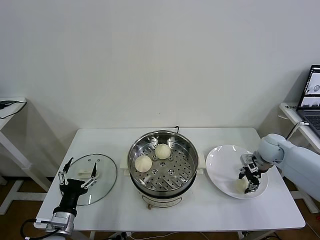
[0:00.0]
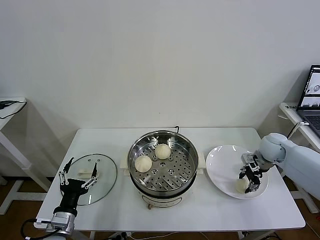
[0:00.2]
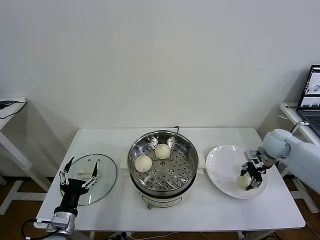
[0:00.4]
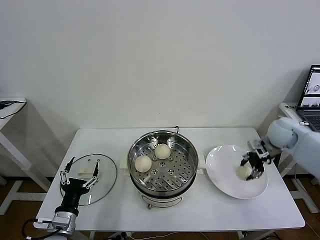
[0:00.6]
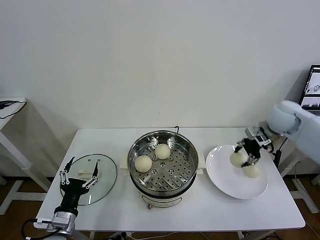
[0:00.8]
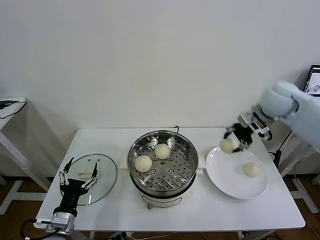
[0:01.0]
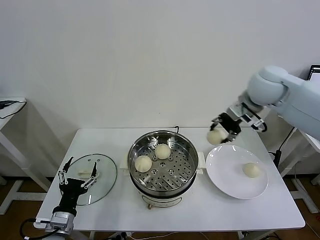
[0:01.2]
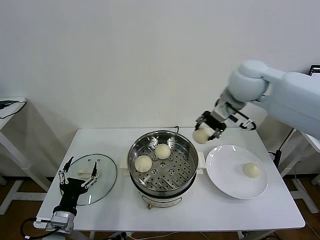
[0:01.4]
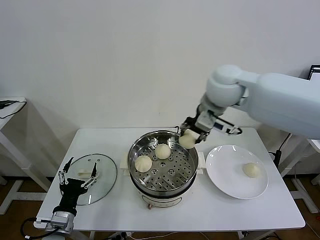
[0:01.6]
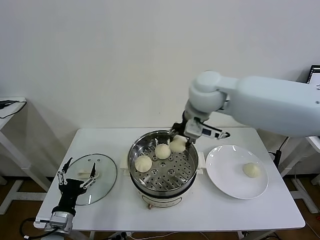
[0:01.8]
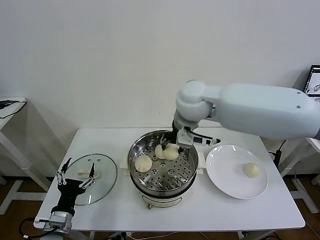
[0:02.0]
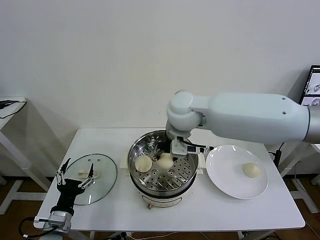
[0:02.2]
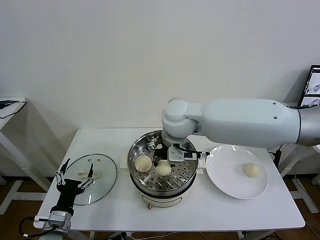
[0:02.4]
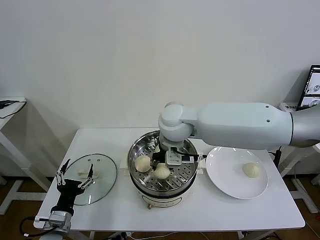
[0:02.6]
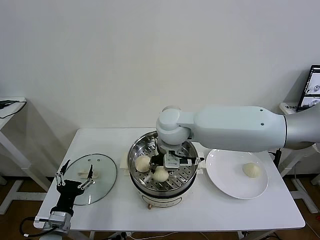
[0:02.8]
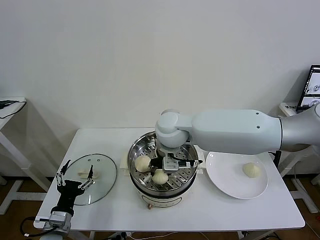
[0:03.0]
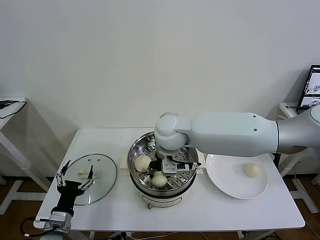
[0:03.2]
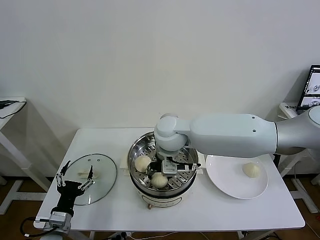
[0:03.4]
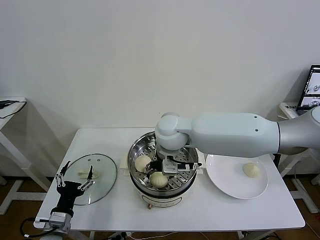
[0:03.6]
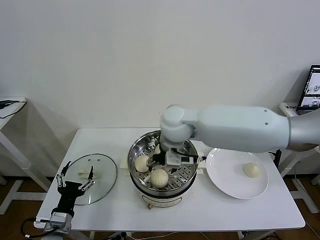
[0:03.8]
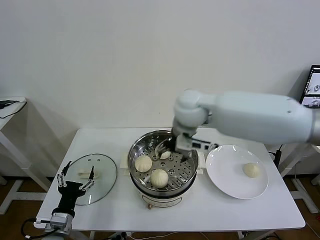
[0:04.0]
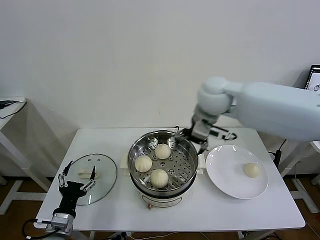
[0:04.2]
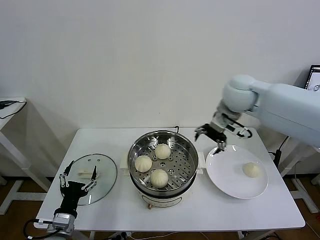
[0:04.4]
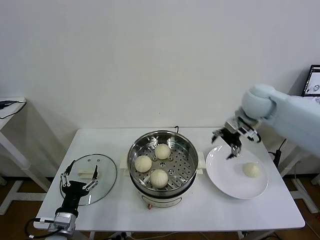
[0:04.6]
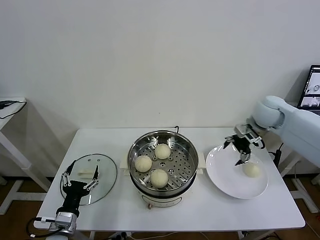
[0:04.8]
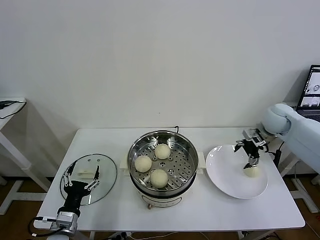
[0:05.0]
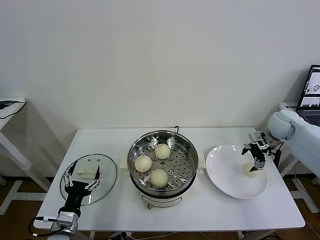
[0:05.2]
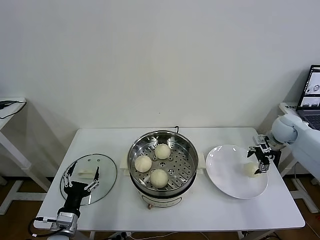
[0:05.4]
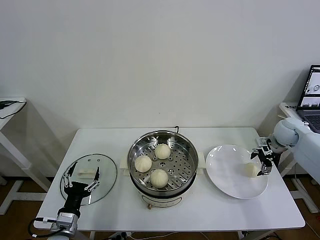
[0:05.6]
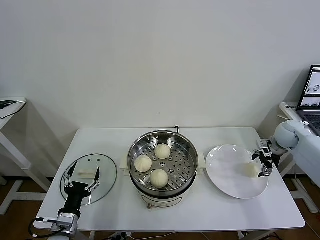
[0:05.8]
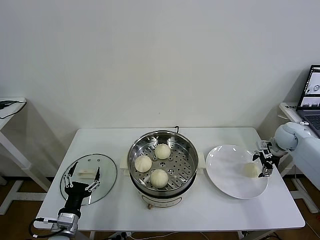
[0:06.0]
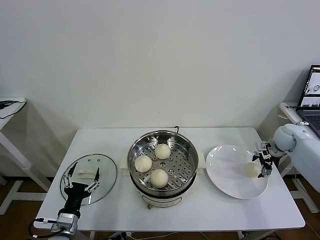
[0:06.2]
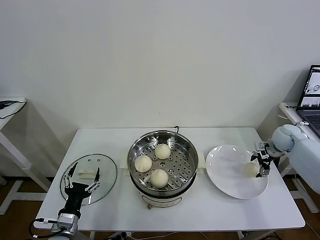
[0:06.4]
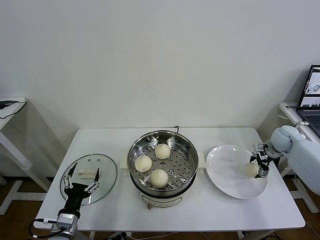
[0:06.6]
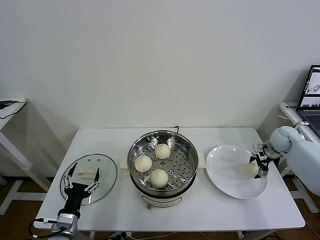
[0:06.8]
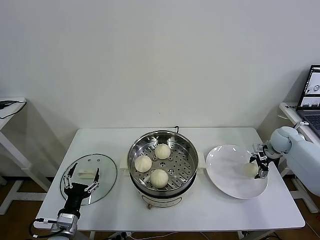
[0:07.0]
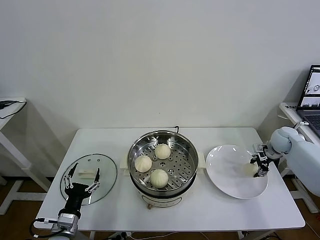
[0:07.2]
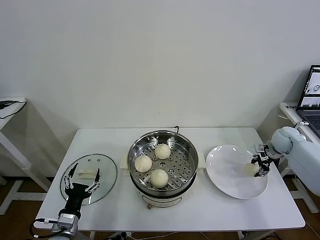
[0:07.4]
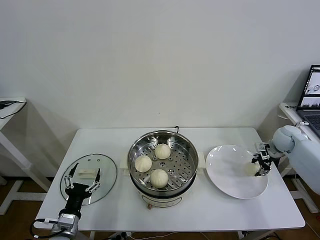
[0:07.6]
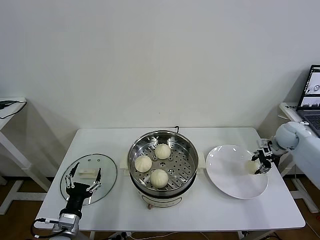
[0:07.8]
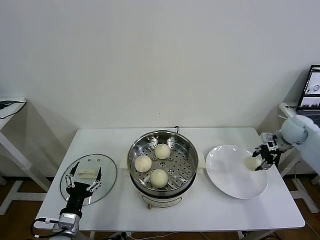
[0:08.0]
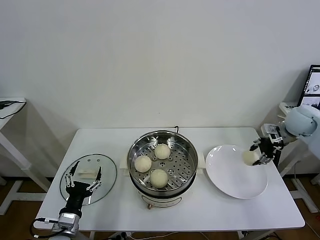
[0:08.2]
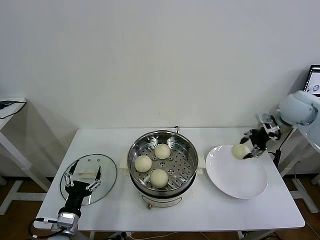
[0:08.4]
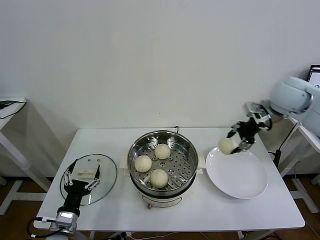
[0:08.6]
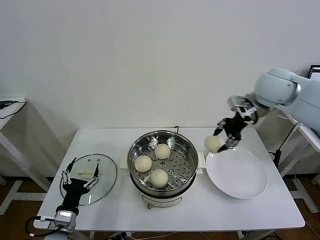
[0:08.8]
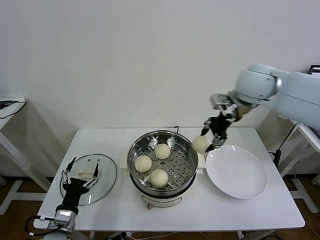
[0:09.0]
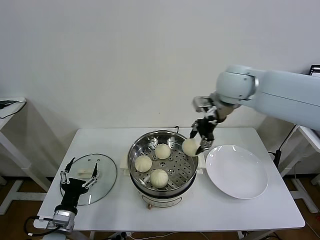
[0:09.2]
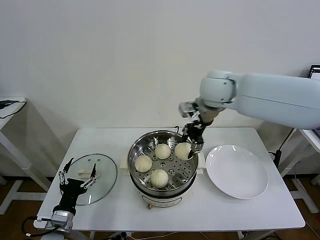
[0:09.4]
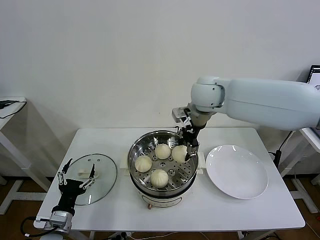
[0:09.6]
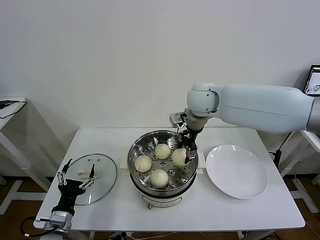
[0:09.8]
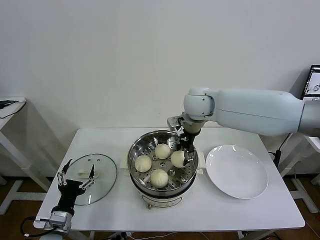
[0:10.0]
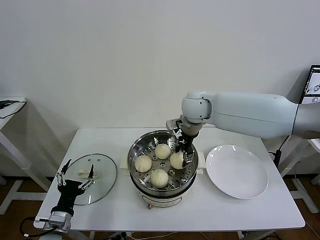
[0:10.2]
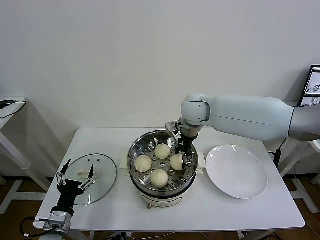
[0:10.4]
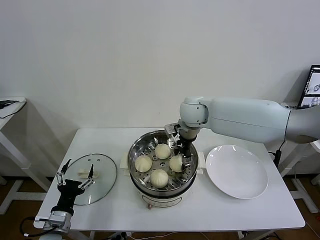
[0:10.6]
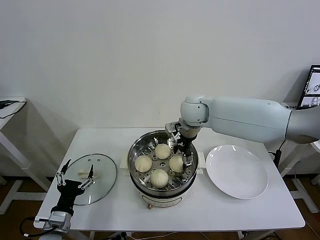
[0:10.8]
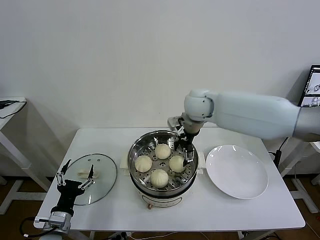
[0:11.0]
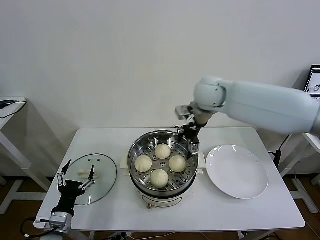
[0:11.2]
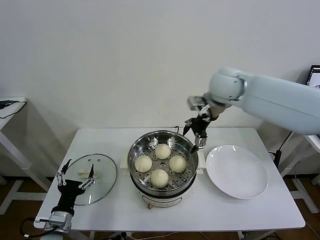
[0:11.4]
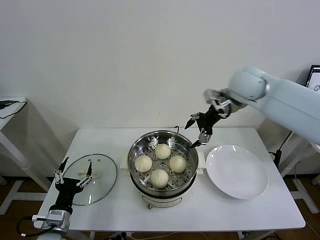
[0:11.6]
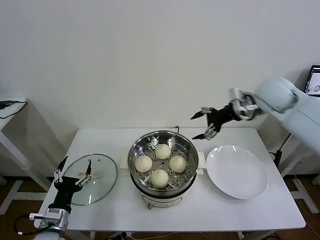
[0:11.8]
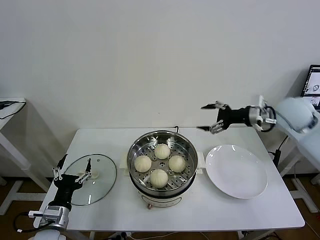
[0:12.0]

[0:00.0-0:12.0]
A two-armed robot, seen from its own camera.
Task of the whole recording: take steamed baozi put them in steamer then cover it.
Step, 0:00.0 to 0:03.6: Place the baozi on the steamer with right gripper.
Step, 0:03.8 to 0:07.2: Grasp the baozi in the plate with right gripper.
Step, 0:07.6 to 0:10.8: Place the baozi on the steamer with right gripper.
0:00.0 to 0:01.6: The right gripper goes about 35 cm upward and to the left.
0:01.6 to 0:03.0: The right gripper is displaced to the left and downward by some 15 cm.
0:03.0 to 0:04.4: The right gripper goes some 20 cm to the right, and opens up.
0:04.4 to 0:06.0: The right gripper moves to the right and downward, some 30 cm.
0:06.0 to 0:07.6: The right gripper closes up.
0:07.6 to 0:09.0: The right gripper travels upward and to the left by some 35 cm.
0:09.0 to 0:10.4: The right gripper shifts some 15 cm to the left and downward.
0:10.4 to 0:12.0: The right gripper shifts about 25 cm to the right, and opens its fingers.

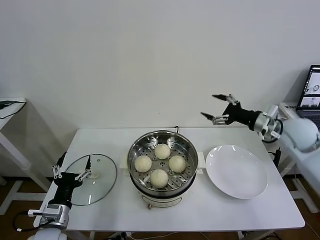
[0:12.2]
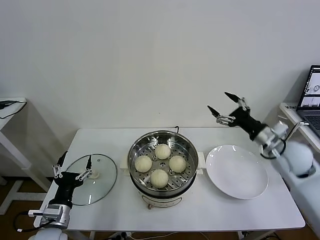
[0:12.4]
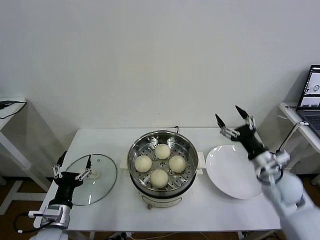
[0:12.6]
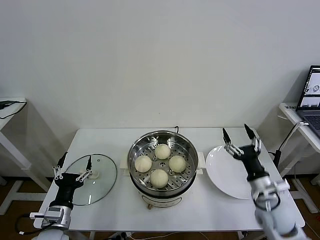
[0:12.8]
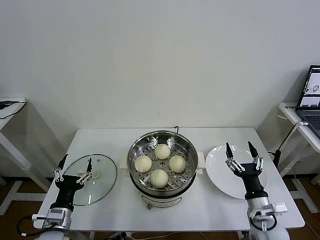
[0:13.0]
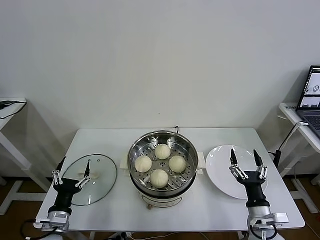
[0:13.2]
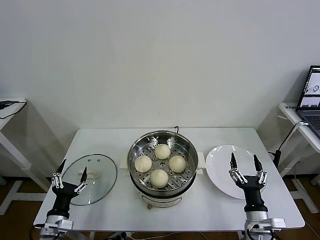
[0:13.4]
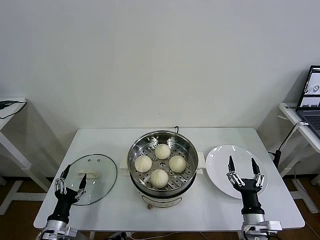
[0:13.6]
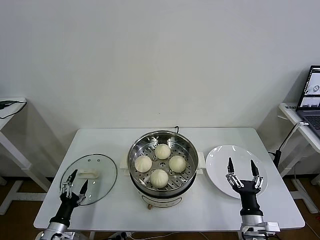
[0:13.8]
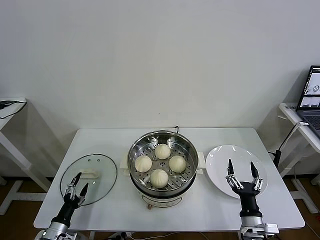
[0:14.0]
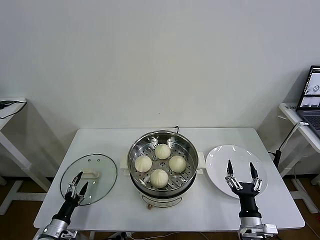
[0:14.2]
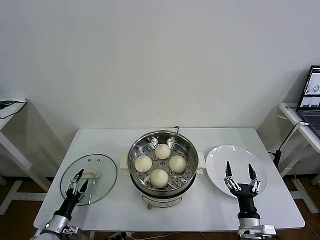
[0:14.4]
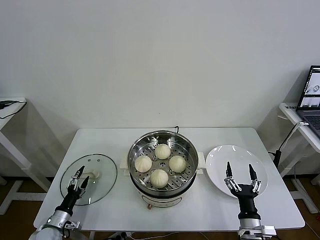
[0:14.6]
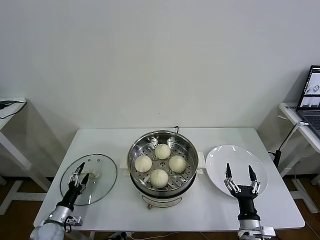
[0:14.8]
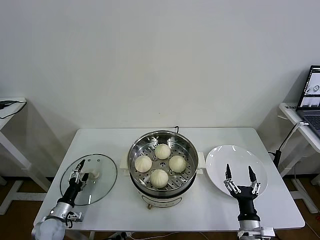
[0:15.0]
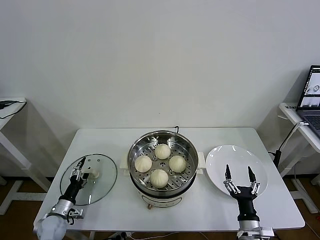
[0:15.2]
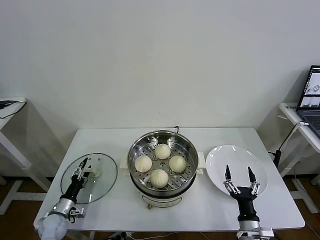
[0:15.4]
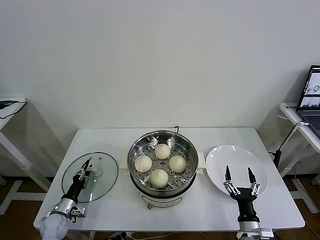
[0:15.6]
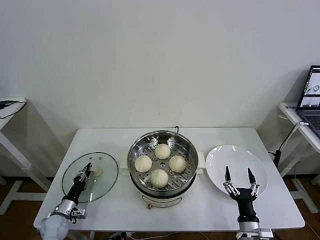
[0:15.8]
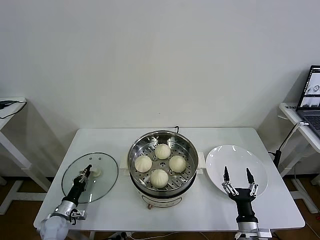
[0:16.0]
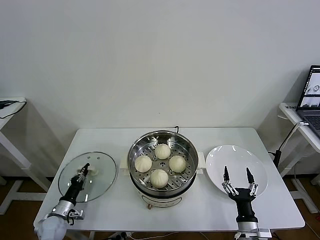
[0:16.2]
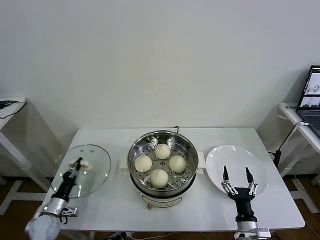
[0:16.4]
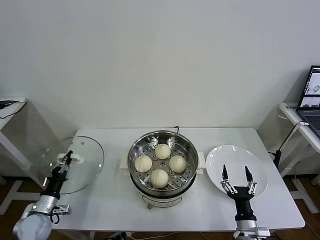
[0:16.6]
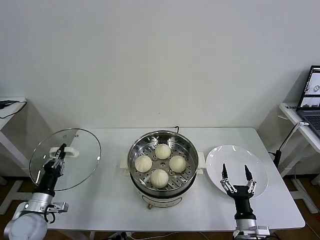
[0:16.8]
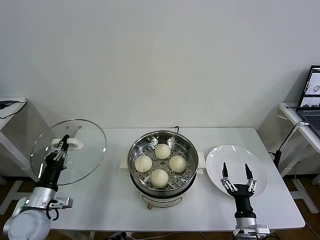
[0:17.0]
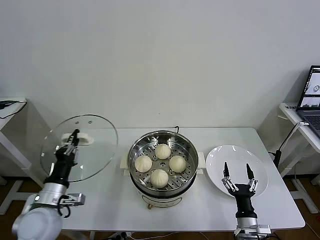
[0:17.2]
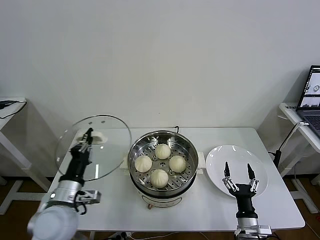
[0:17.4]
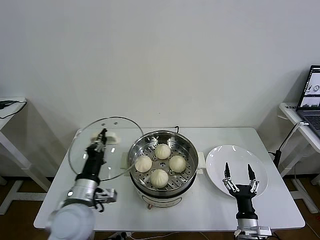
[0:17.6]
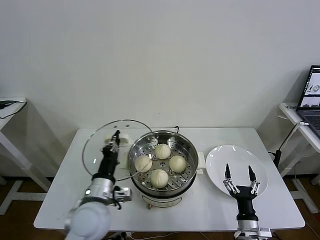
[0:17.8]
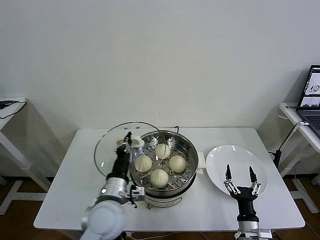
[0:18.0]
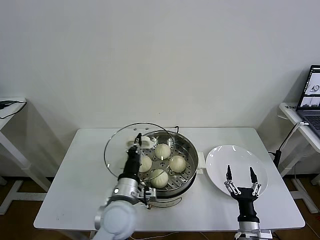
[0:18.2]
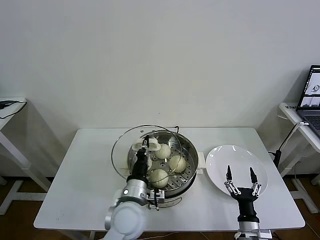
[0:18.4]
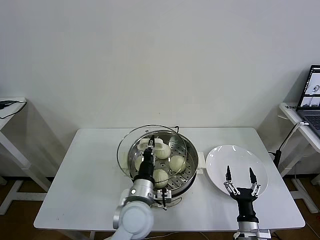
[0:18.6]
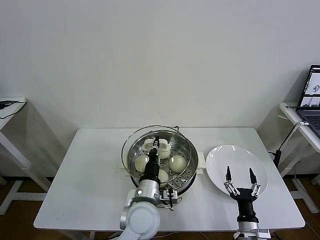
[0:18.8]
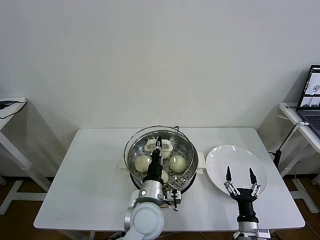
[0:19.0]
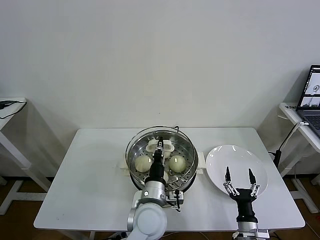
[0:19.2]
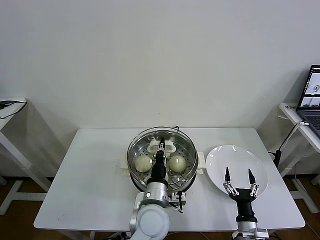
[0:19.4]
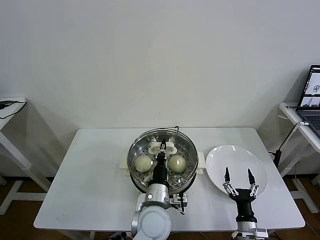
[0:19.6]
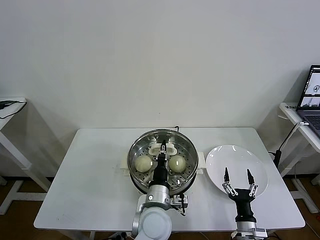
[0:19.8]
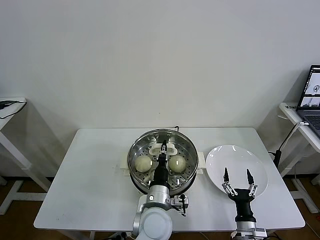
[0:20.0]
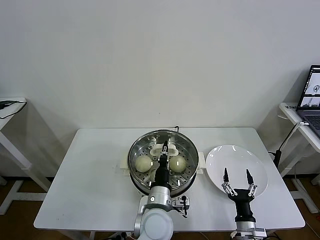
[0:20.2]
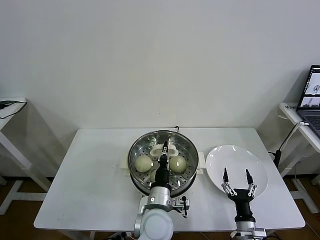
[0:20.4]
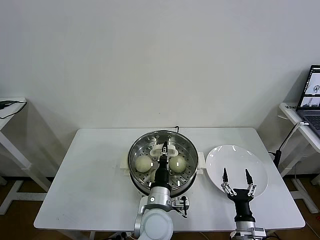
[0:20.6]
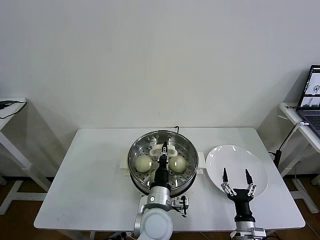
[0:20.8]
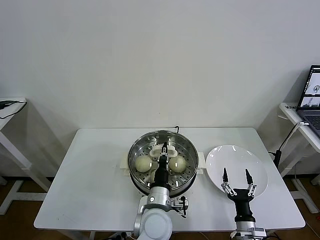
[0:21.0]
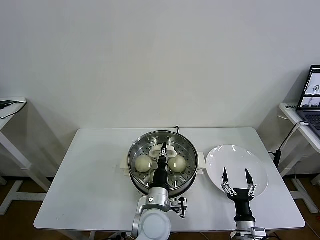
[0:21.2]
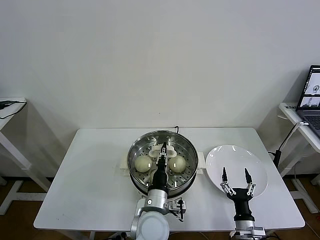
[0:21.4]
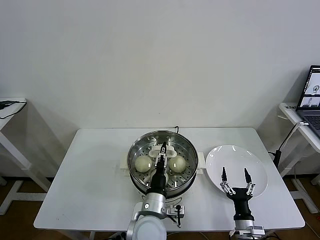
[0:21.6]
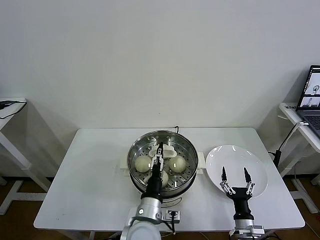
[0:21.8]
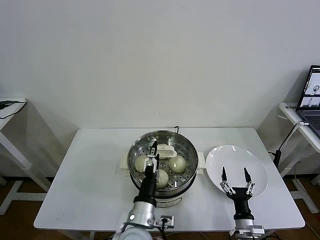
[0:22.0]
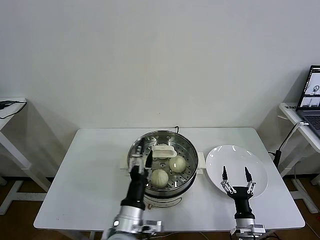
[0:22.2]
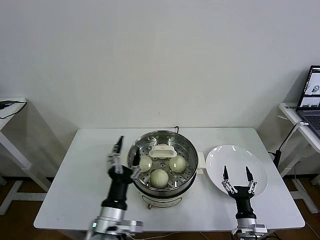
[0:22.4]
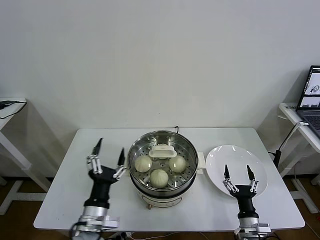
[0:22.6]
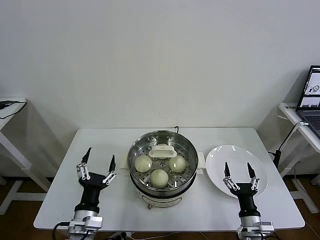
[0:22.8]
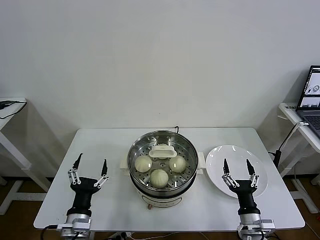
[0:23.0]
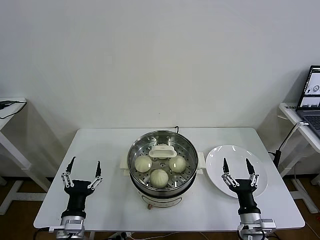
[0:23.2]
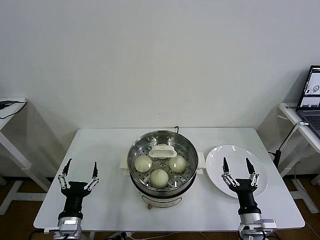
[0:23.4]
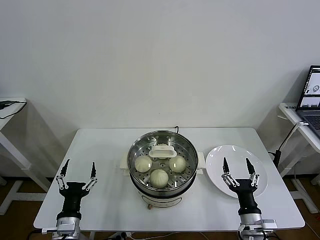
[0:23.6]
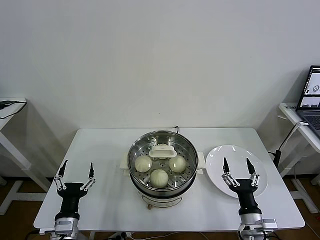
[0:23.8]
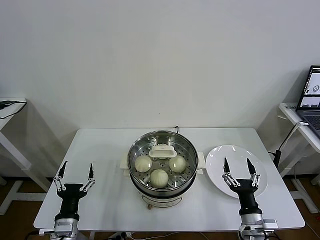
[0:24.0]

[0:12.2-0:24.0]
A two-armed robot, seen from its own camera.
Task of the whole recording: take steamed baozi put them in steamer then cover it.
Step, 0:12.2 to 0:16.0: Grasp the pot lid with left gripper.
Step, 0:16.2 to 0:22.0: Place the pot lid on the steamer with left gripper.
0:12.2 to 0:13.6: The right gripper heads downward and backward, covering approximately 35 cm; the left gripper shifts approximately 10 cm downward.
0:13.6 to 0:15.2: The left gripper moves forward, downward and to the left, some 15 cm.
0:15.2 to 0:16.6: The left gripper heads upward, covering roughly 5 cm, and closes its fingers.
0:16.6 to 0:18.2: The left gripper shifts some 35 cm to the right and upward.
0:18.2 to 0:19.6: The left gripper heads to the right, covering some 10 cm.
0:19.6 to 0:21.0: The grippers move only a little.
0:21.0 to 0:22.6: The left gripper heads to the left and backward, covering approximately 15 cm, and opens its fingers.
0:22.6 to 0:24.0: The right gripper heads upward, covering approximately 5 cm; the left gripper is displaced to the left and downward by about 10 cm.
